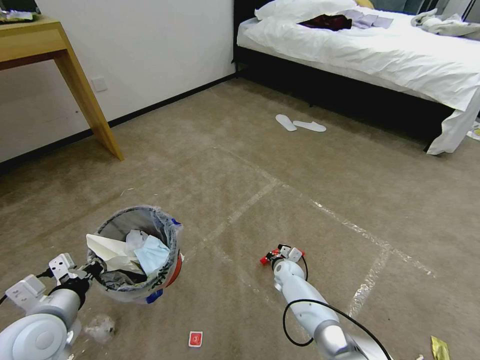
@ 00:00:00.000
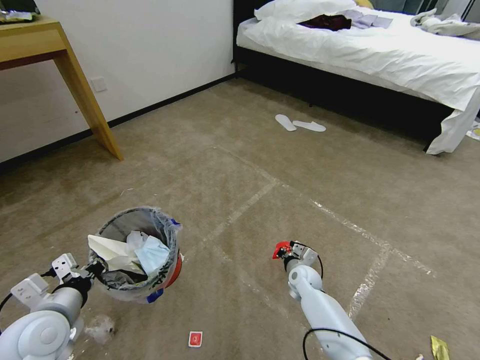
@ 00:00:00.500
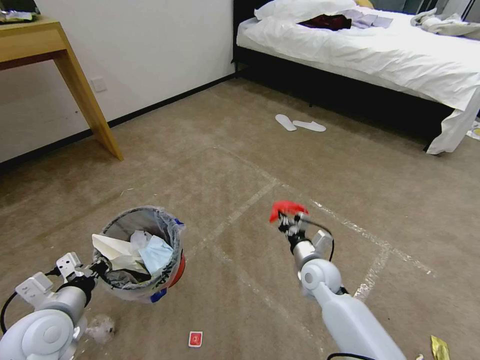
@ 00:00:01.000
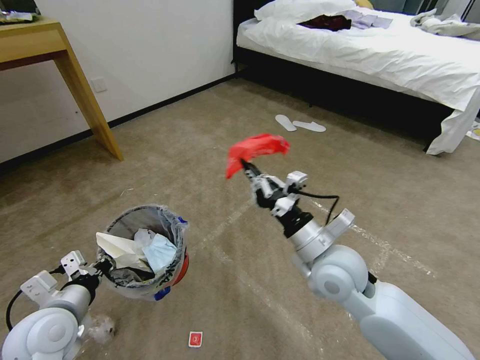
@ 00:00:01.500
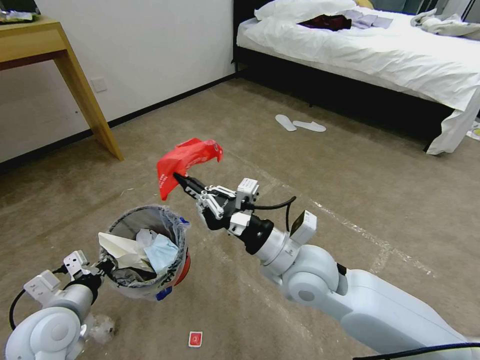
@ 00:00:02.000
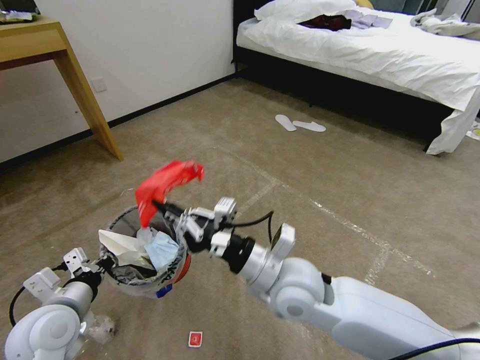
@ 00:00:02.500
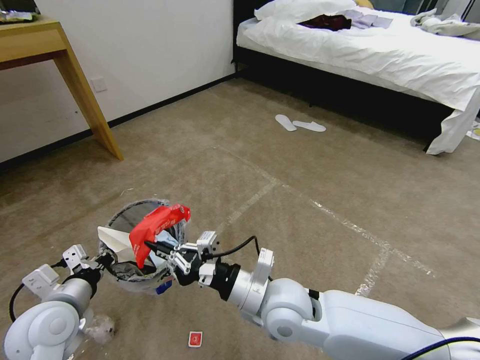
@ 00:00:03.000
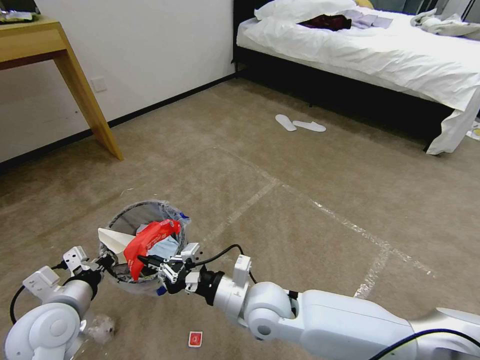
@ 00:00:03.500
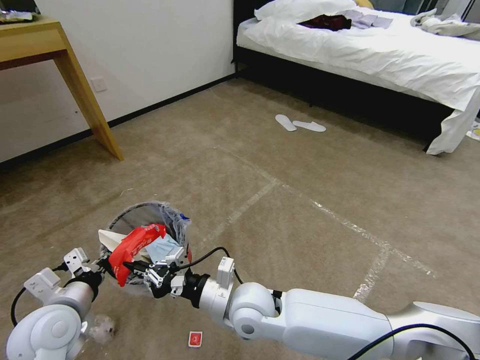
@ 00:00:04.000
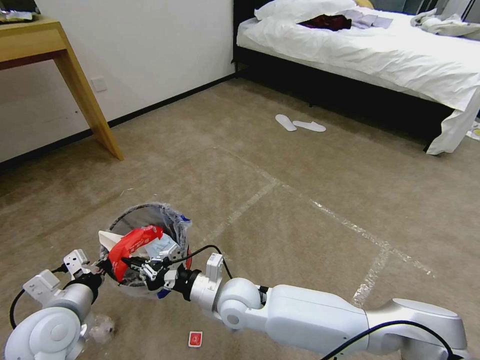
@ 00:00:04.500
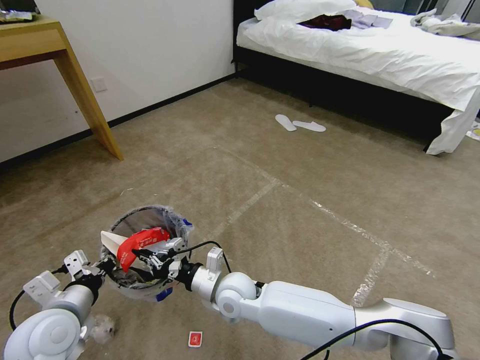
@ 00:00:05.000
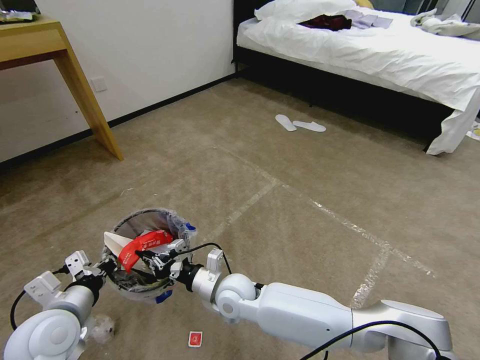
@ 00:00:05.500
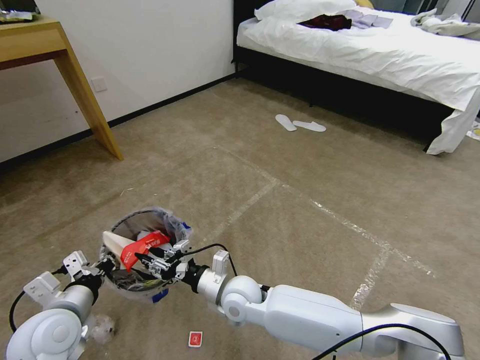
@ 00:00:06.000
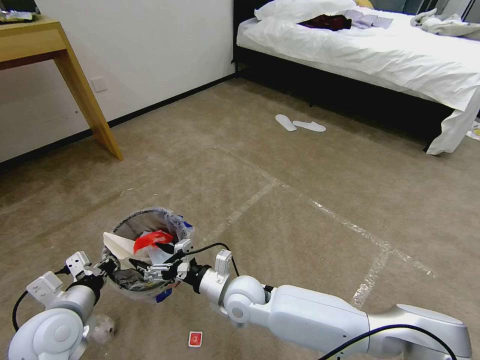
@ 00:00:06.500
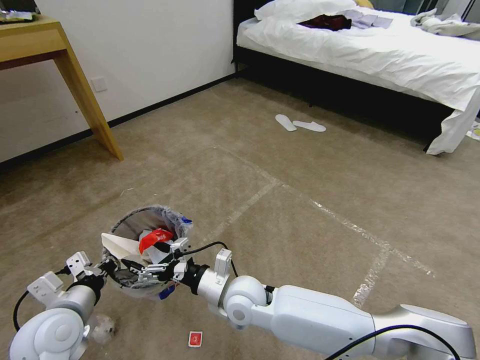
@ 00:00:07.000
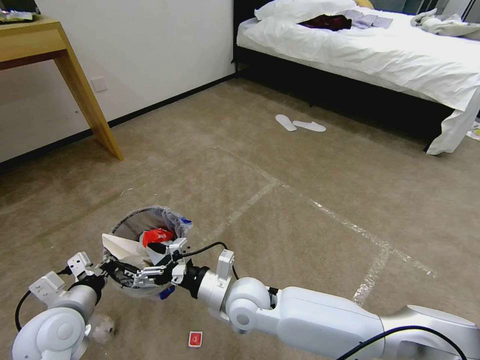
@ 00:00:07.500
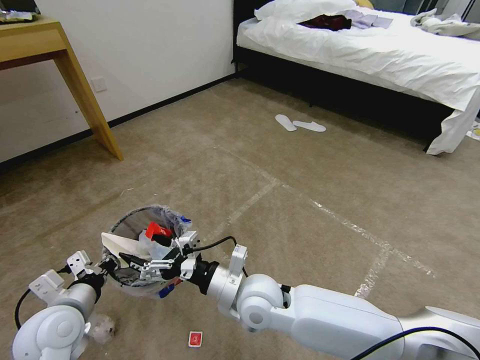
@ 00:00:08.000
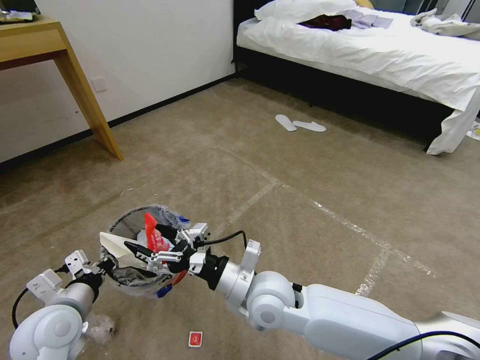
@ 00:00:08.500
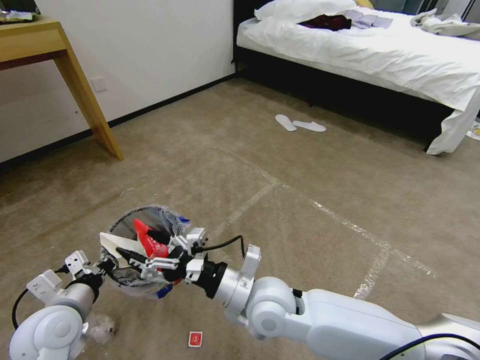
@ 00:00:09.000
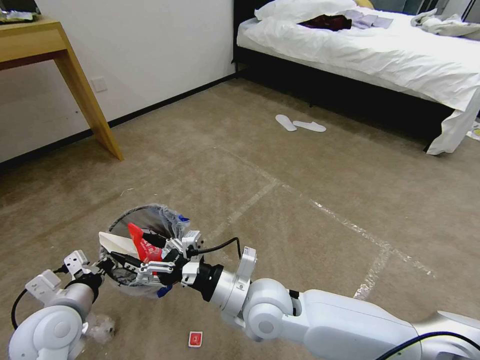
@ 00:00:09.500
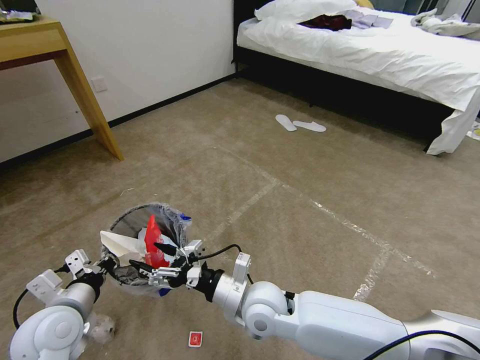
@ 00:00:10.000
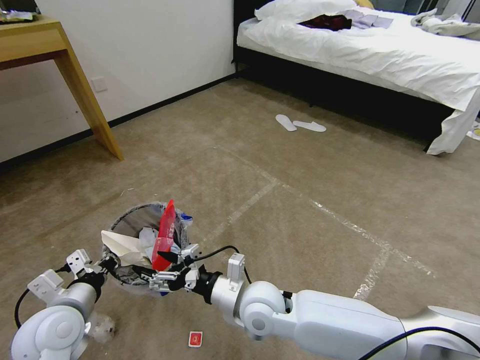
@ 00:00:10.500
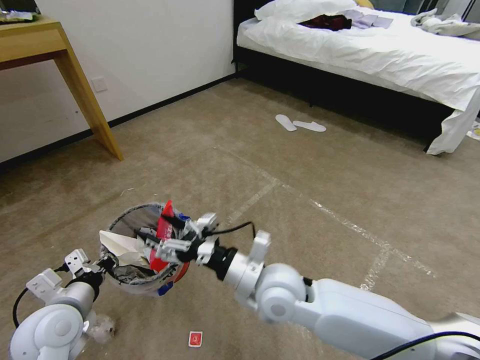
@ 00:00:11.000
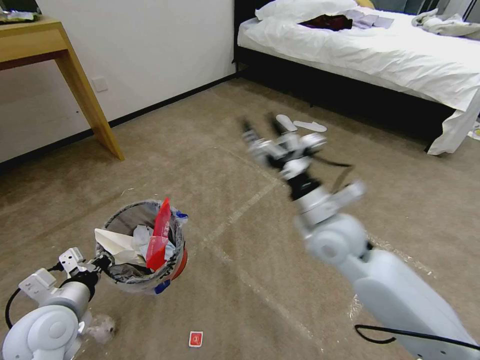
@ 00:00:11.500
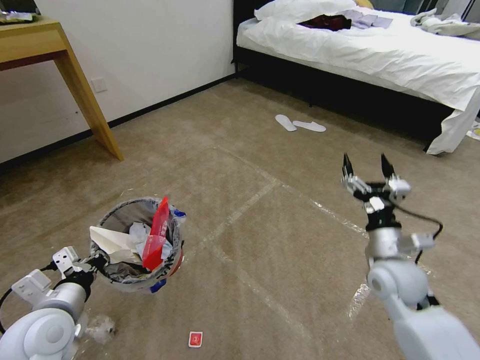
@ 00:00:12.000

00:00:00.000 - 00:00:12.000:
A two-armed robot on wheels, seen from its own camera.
Task of the whole recording: Pick up the trash bin and place the garbage on the floor into it.
00:00:00.000 - 00:00:02.000: The right gripper travels upward and backward by about 40 cm.
00:00:02.000 - 00:00:04.000: The right gripper travels downward and to the left by some 15 cm.
00:00:04.000 - 00:00:06.000: The right gripper heads downward, covering roughly 5 cm, and opens up.
00:00:06.000 - 00:00:08.000: The right gripper heads upward, covering about 5 cm, and opens its fingers.
00:00:08.000 - 00:00:10.000: The grippers make only small movements.
00:00:10.000 - 00:00:12.000: The right gripper moves to the right, about 25 cm.

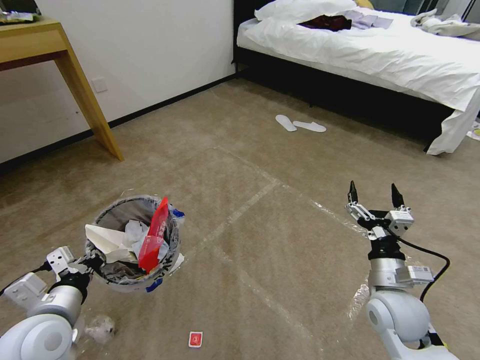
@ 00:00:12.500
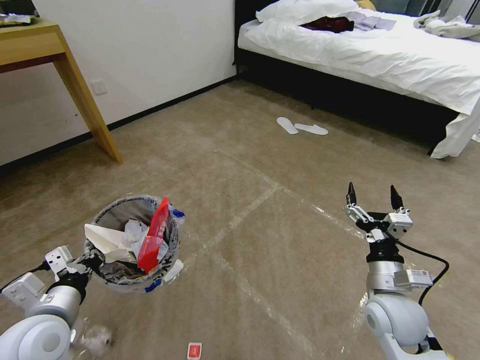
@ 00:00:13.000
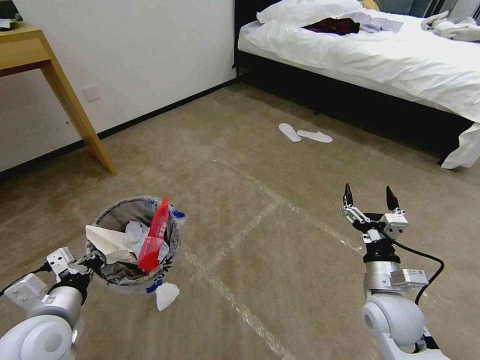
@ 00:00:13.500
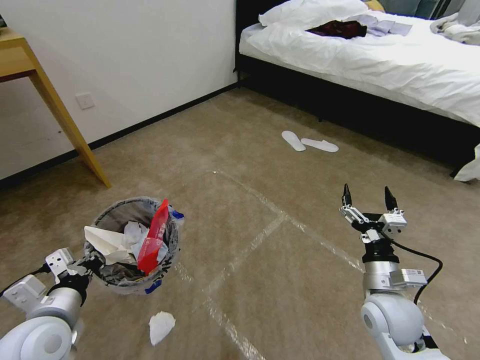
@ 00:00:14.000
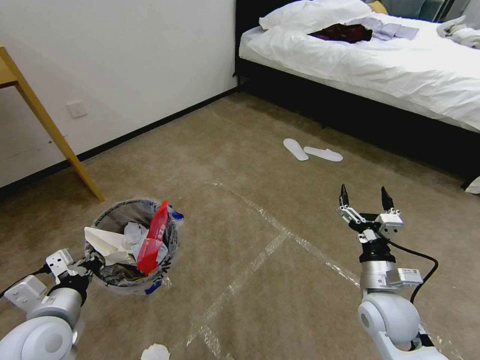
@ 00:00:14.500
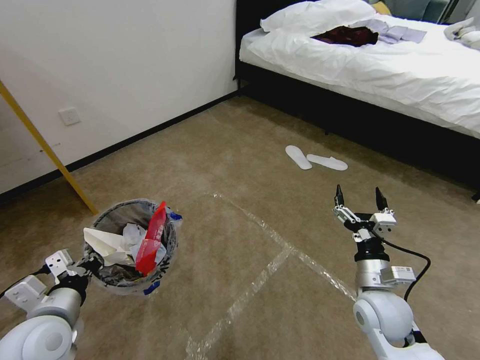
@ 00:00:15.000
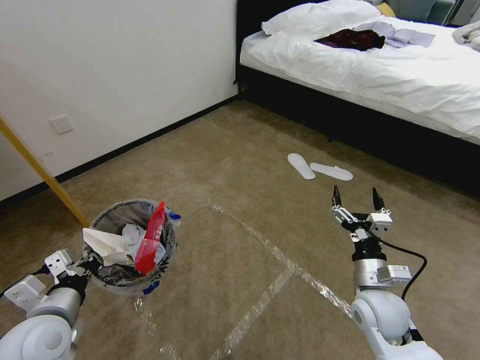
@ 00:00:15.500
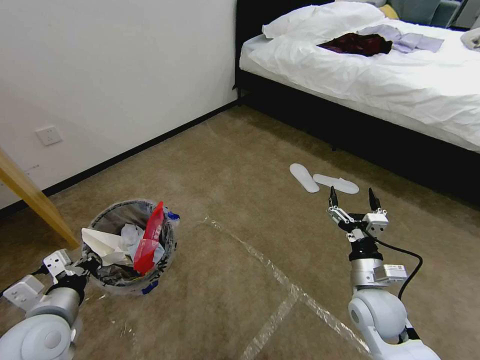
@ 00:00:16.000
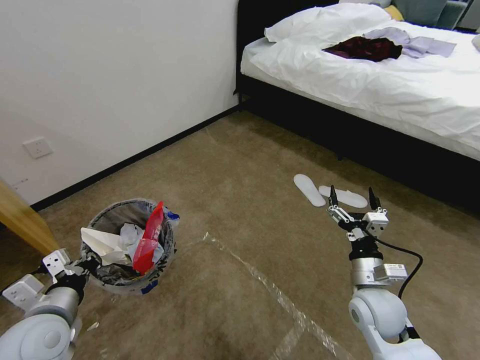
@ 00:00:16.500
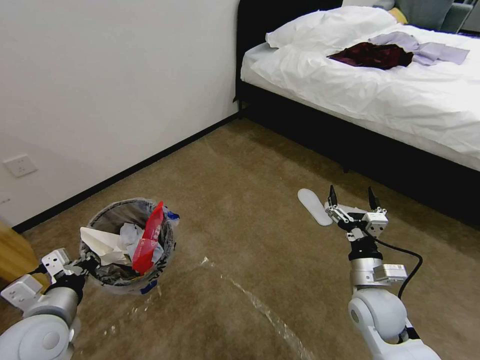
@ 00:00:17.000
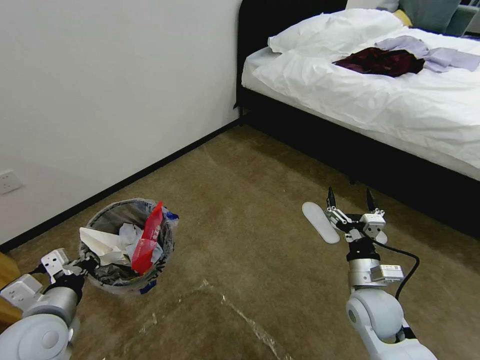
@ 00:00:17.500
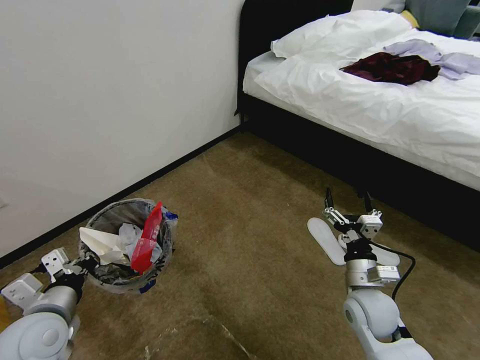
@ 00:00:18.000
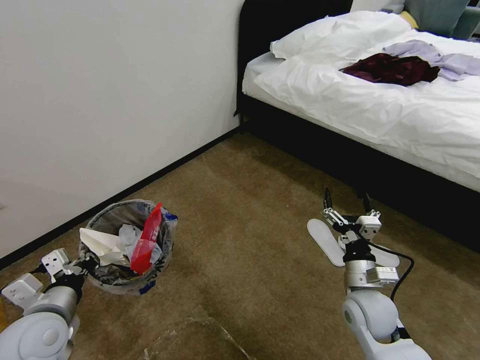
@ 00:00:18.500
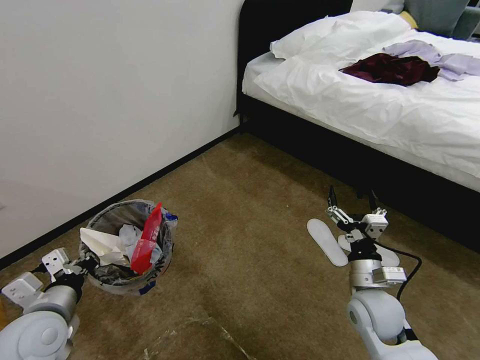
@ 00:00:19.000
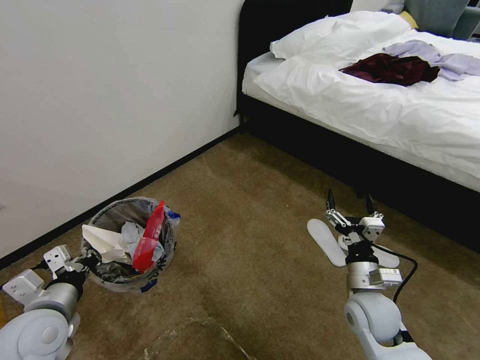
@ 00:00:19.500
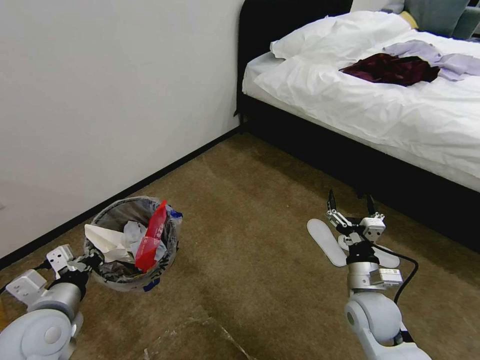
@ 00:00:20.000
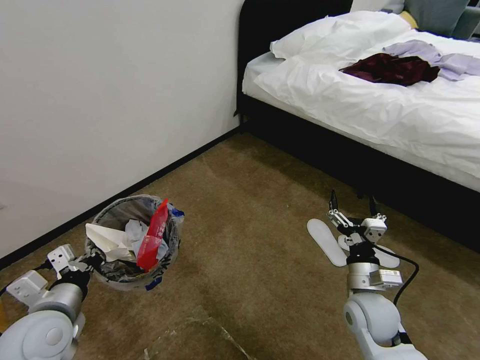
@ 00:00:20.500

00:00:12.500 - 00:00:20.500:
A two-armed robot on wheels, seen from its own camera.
Task of the whole recording: Pick up the trash bin and place the garbage on the floor into it.
00:00:18.500 - 00:00:20.500: Both grippers stay about where they are.
